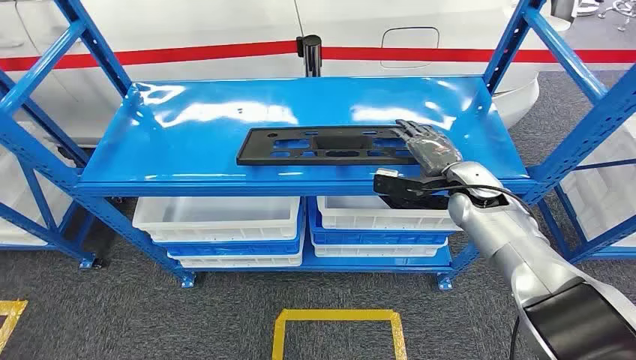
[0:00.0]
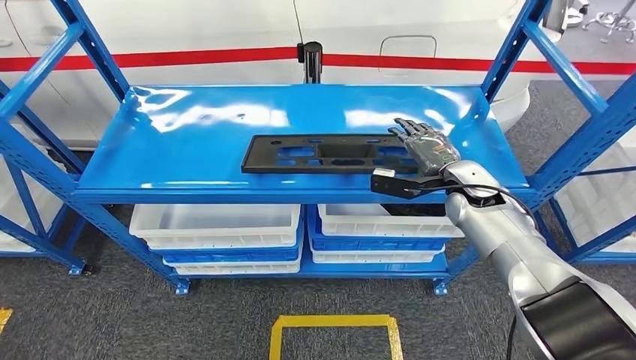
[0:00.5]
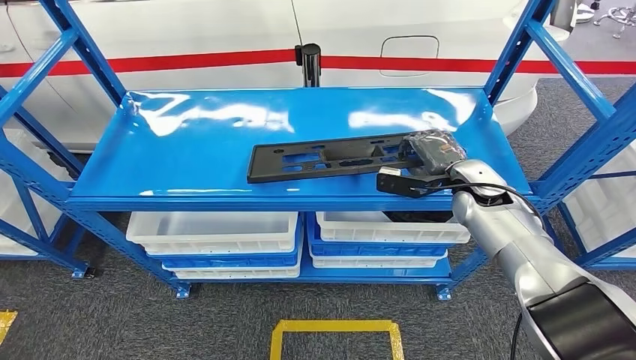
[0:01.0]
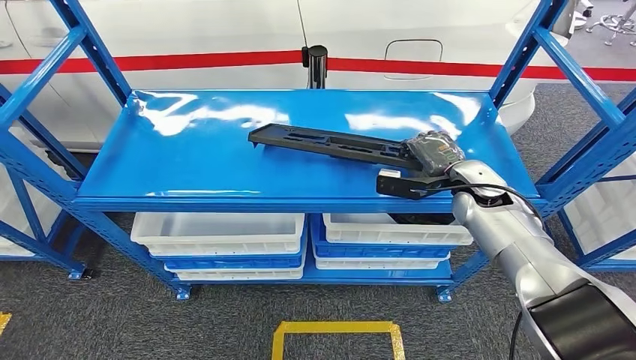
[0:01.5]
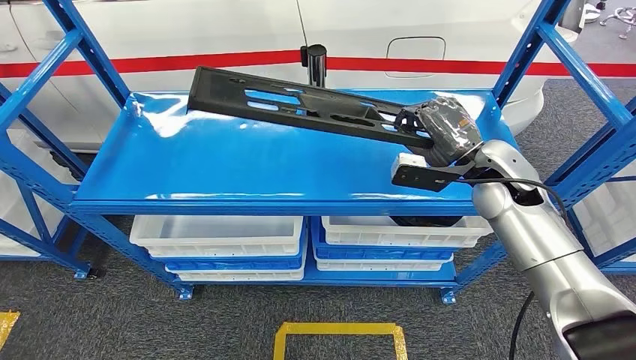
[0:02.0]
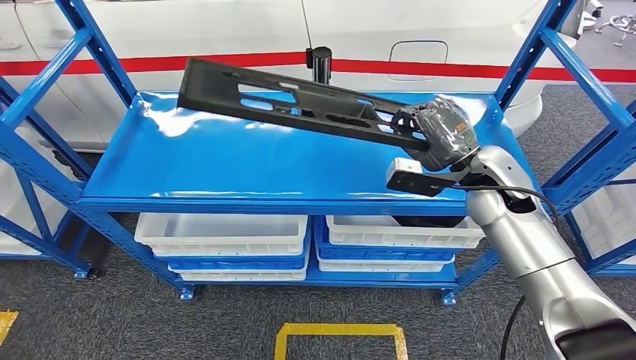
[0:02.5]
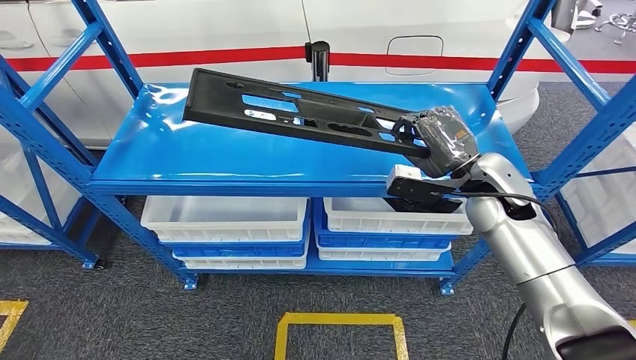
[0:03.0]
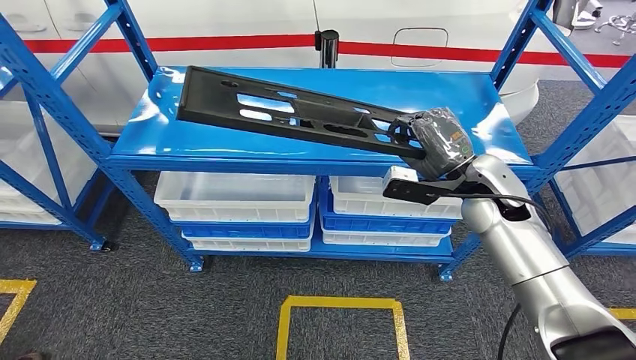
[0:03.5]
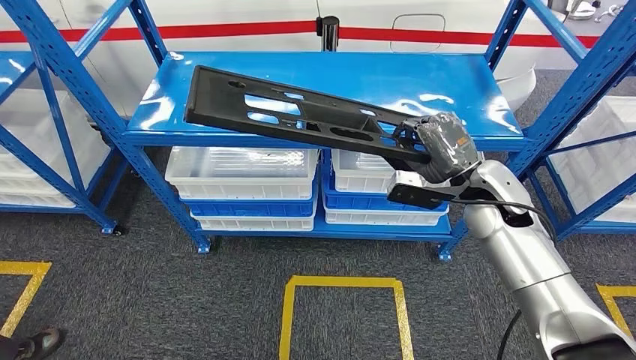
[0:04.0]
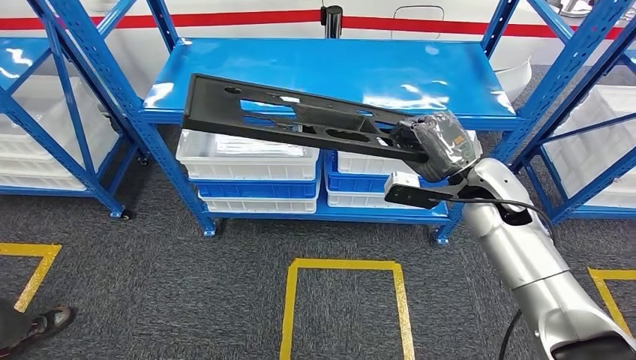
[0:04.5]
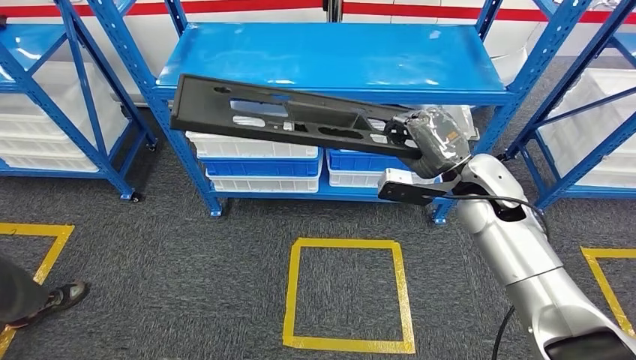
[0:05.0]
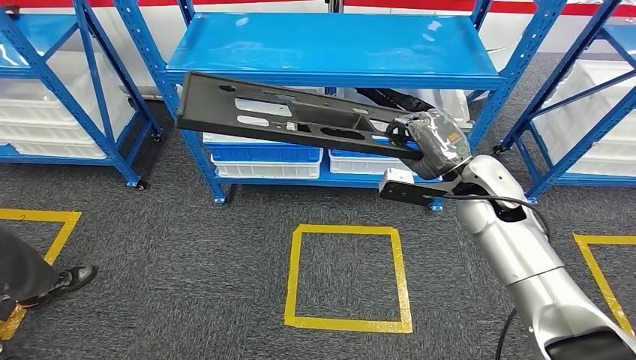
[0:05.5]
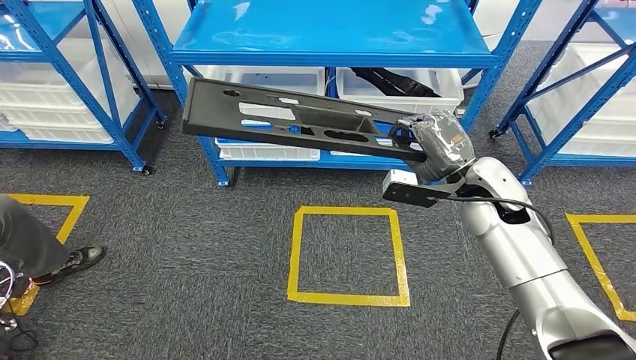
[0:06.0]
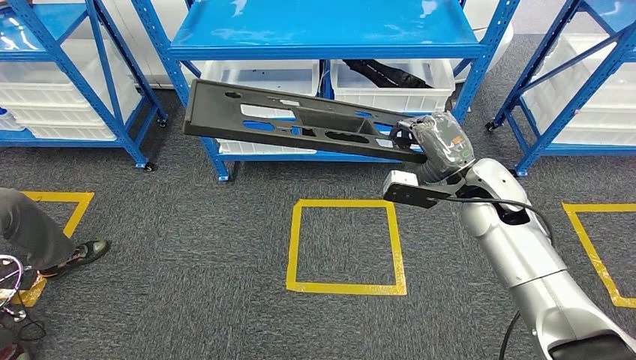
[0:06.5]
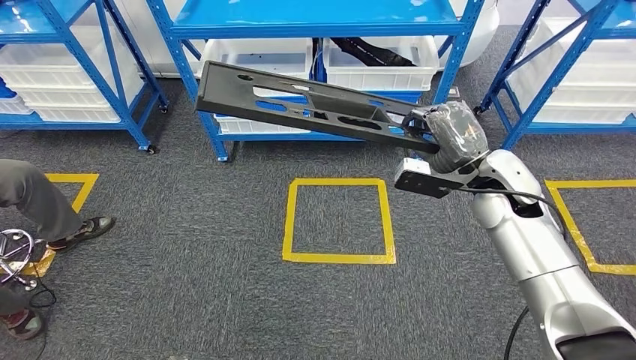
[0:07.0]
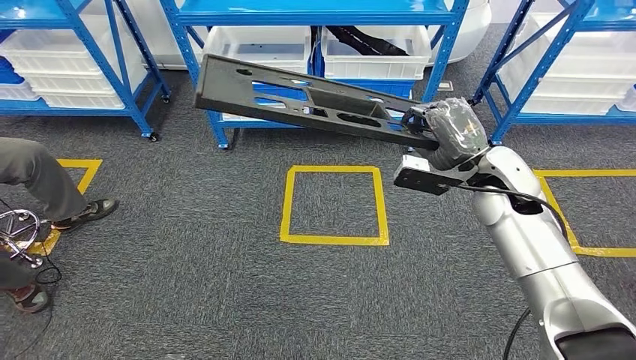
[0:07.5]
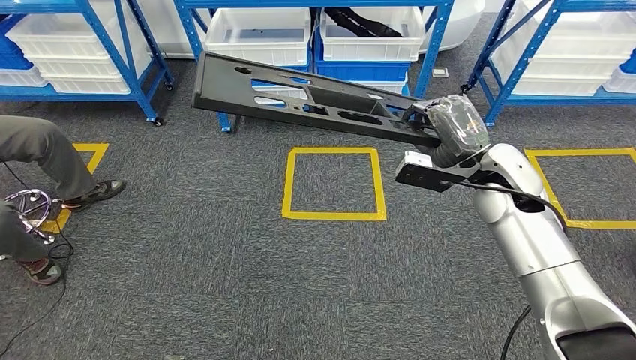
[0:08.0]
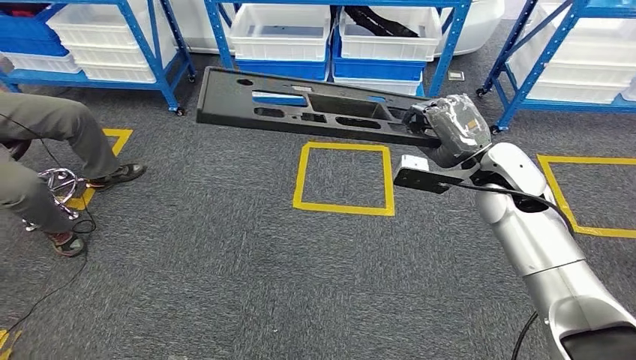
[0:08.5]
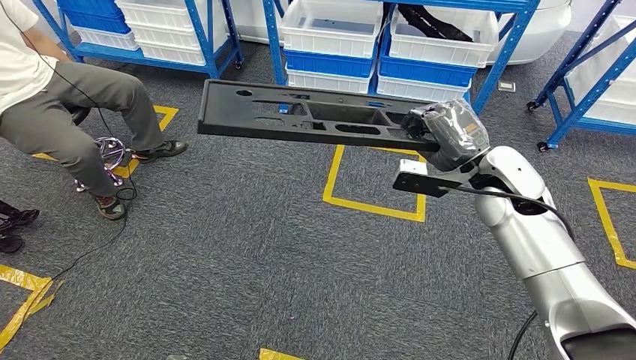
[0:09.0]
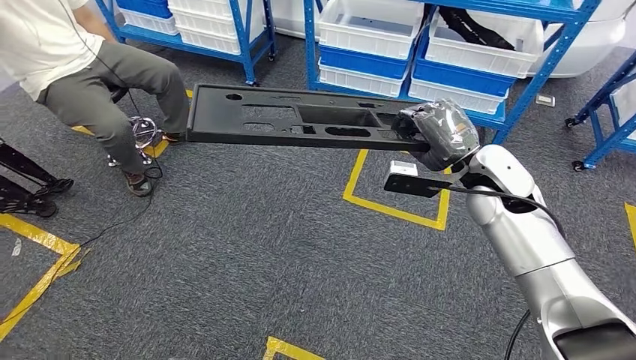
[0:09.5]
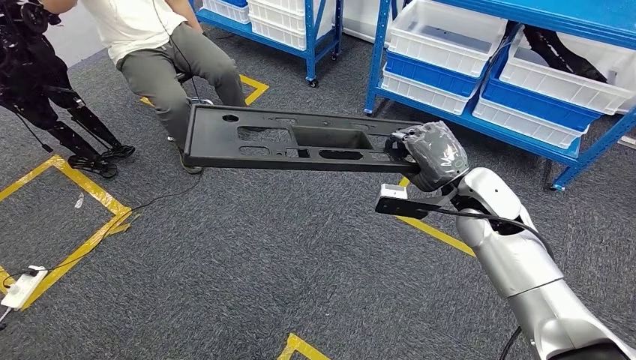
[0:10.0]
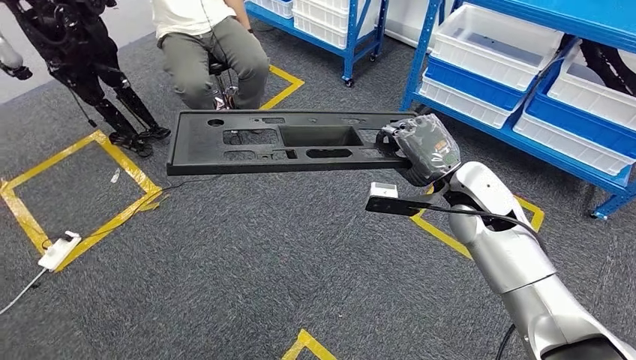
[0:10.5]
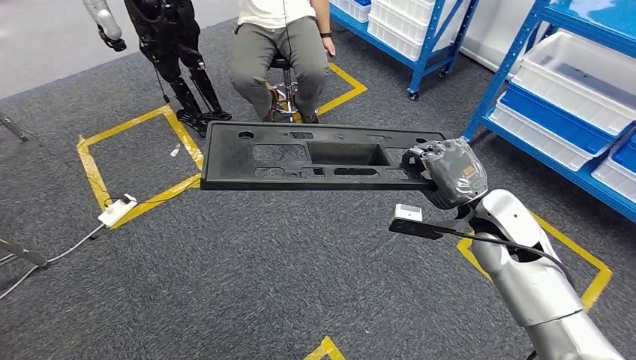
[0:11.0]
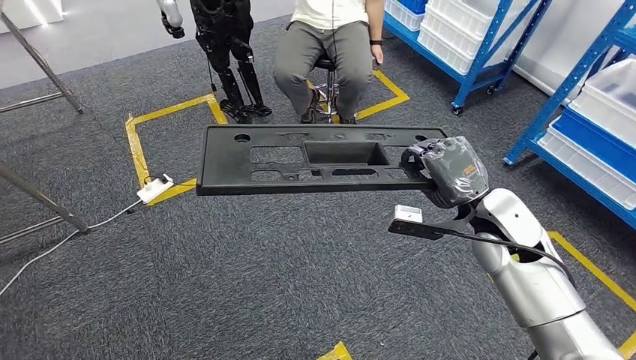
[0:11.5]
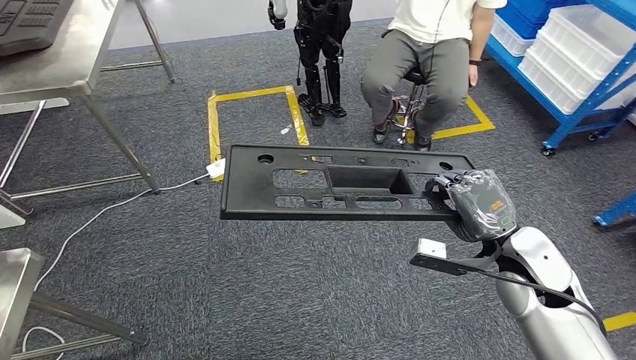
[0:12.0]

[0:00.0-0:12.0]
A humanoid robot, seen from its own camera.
Step, 0:00.0 to 0:05.5: Pick up the large material from the shelf.

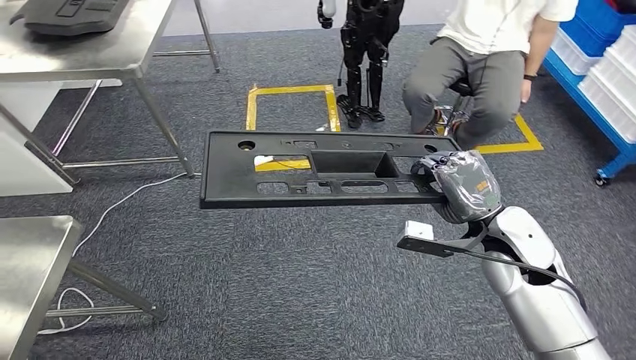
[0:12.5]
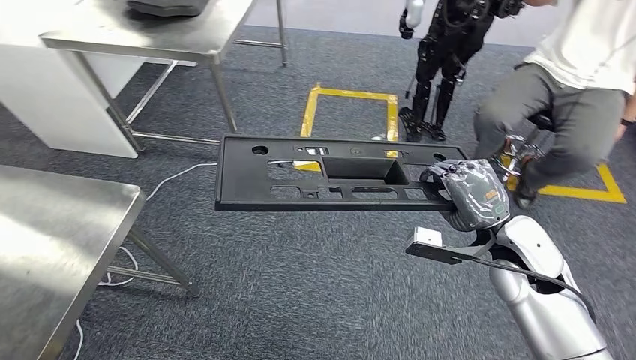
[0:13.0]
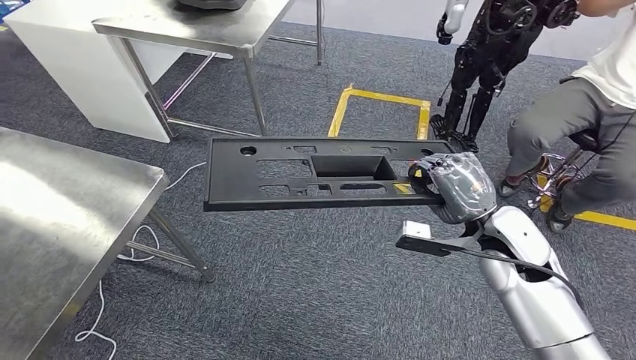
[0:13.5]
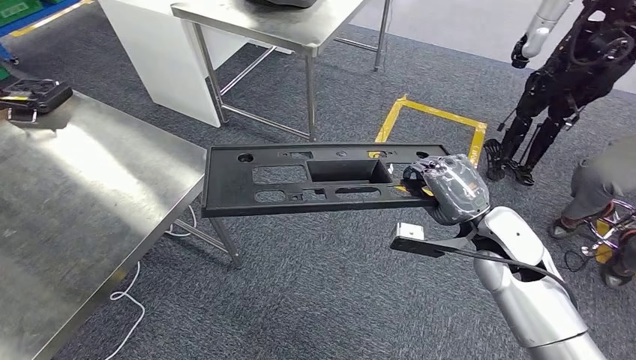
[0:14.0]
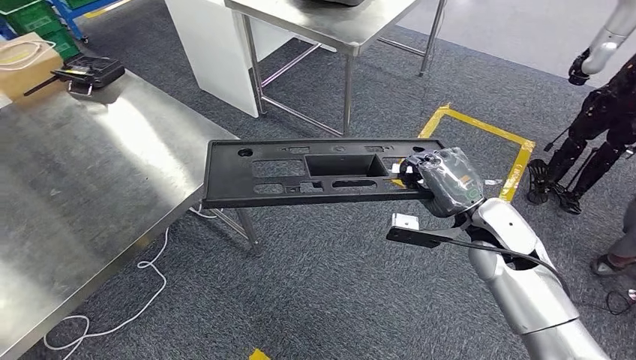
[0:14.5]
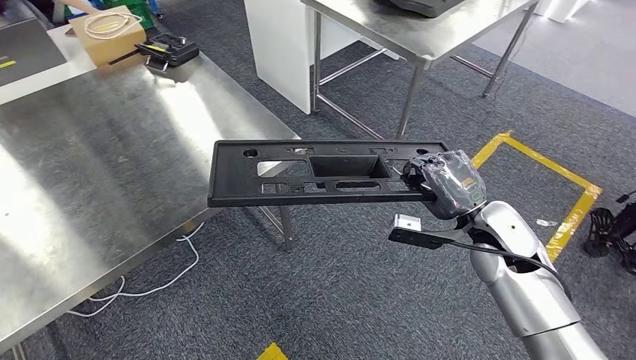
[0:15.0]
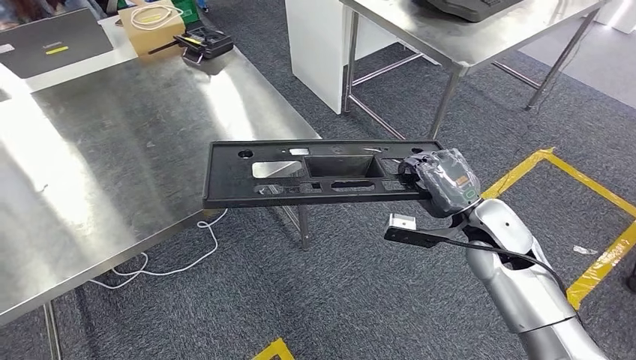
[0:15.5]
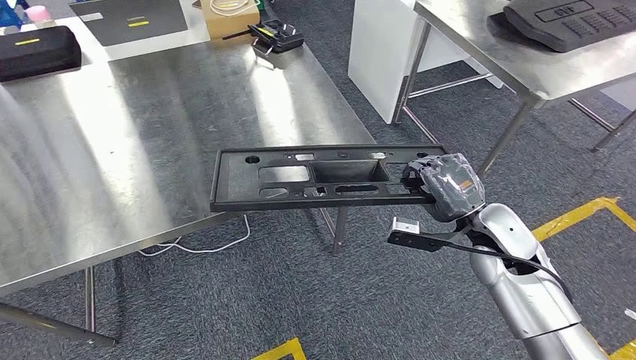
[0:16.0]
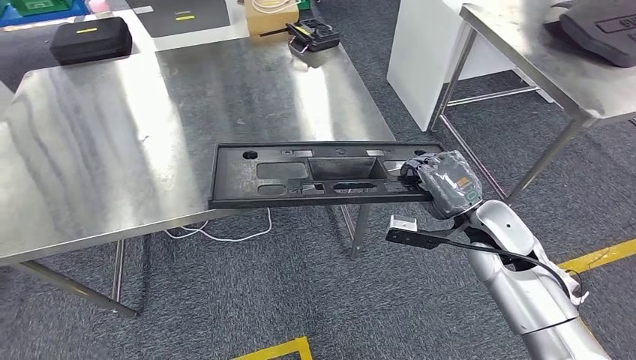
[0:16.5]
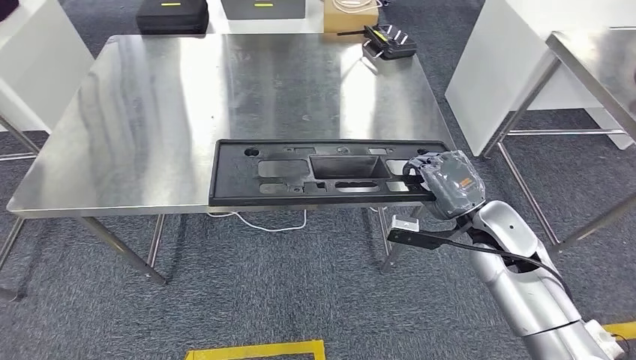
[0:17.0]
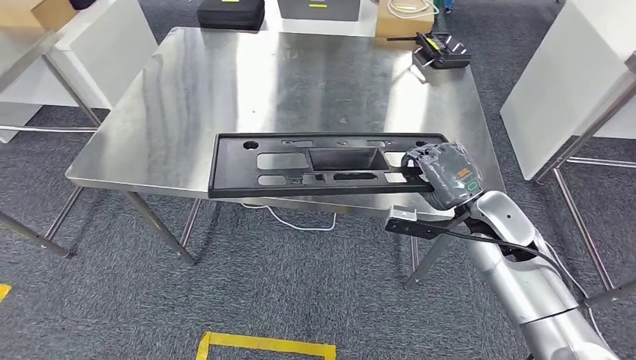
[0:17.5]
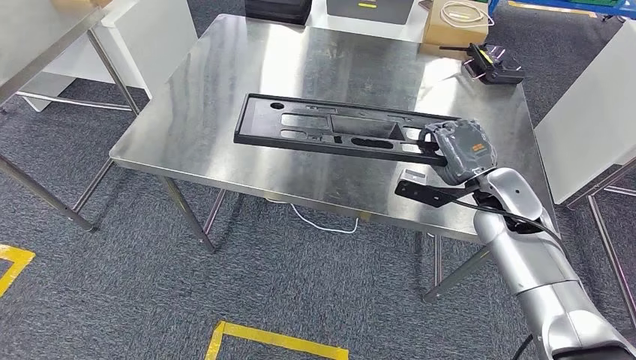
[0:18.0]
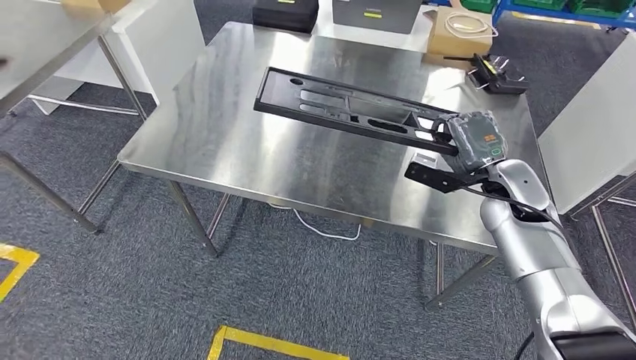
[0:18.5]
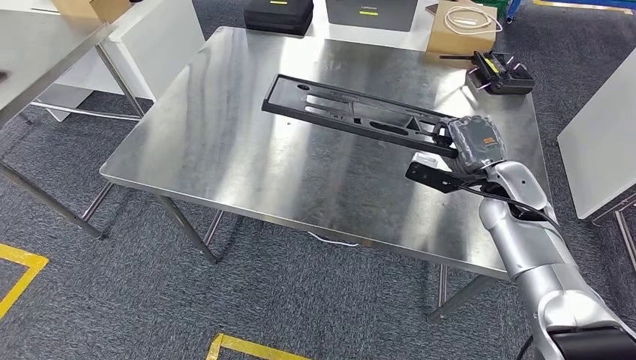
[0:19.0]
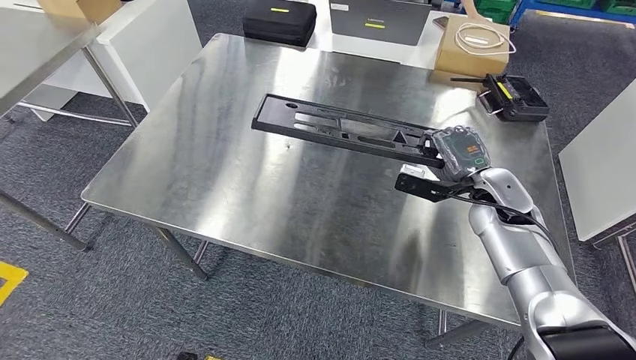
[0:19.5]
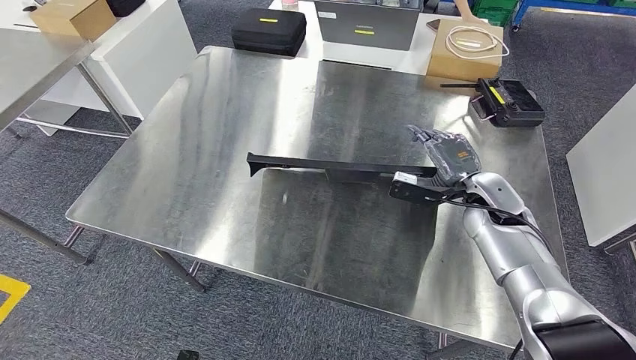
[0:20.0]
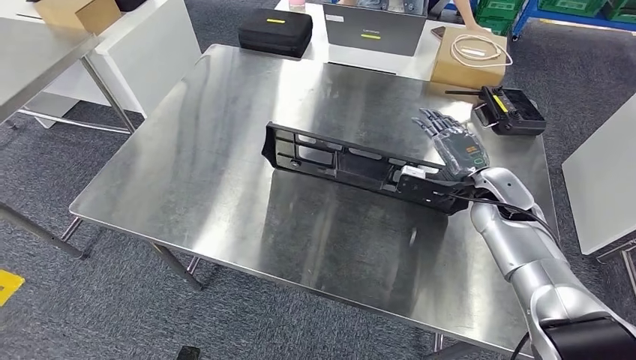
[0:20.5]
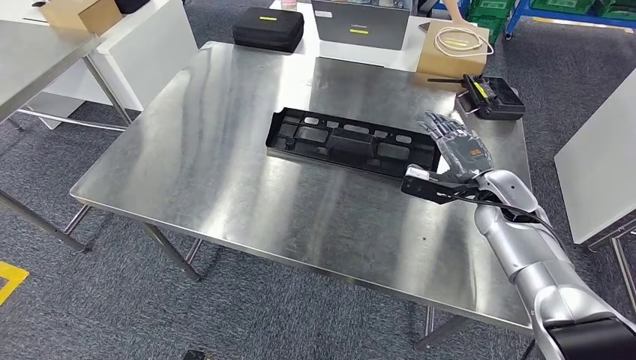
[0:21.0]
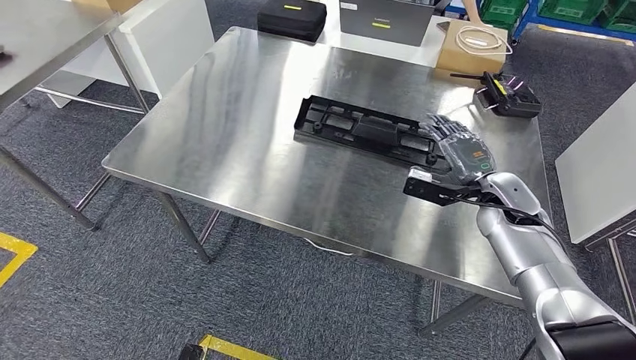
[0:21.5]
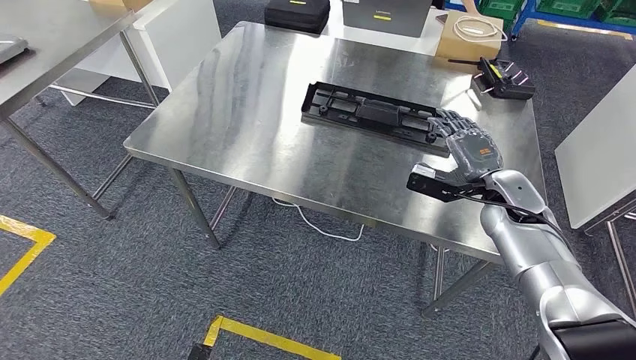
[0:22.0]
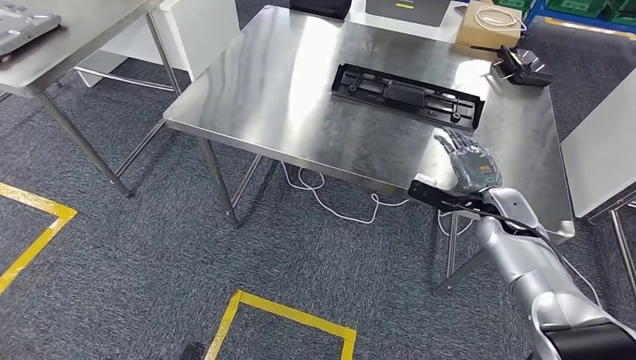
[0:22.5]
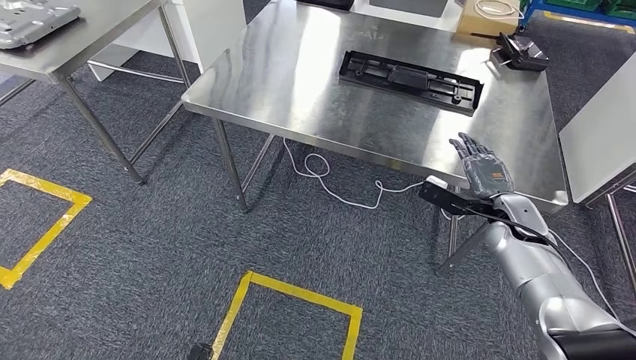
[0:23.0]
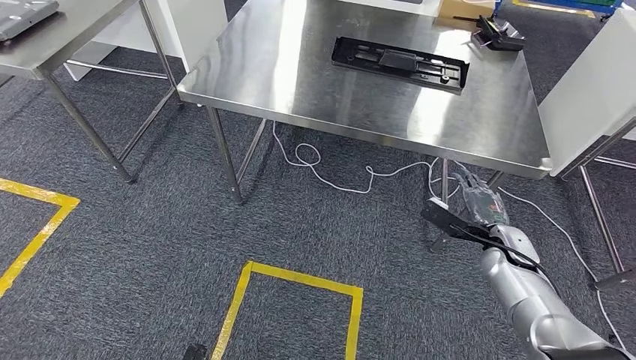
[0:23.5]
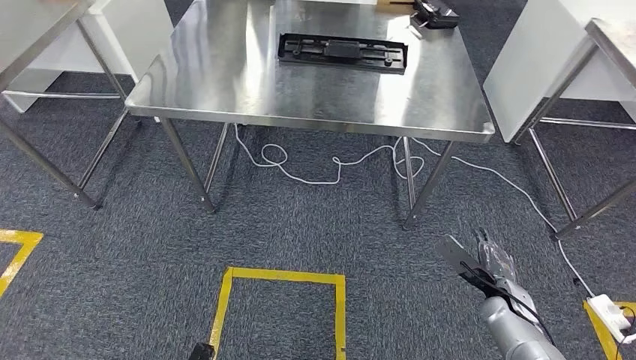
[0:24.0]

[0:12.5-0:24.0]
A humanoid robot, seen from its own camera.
Step, 0:12.5 to 0:17.5: Move the large material to the workbench.
Step, 0:18.5 to 0:22.5: Insert the large material into the corresponding slot on the workbench.
